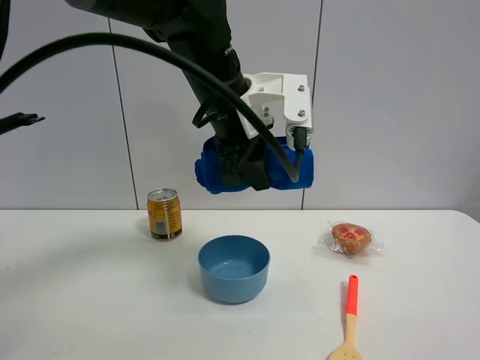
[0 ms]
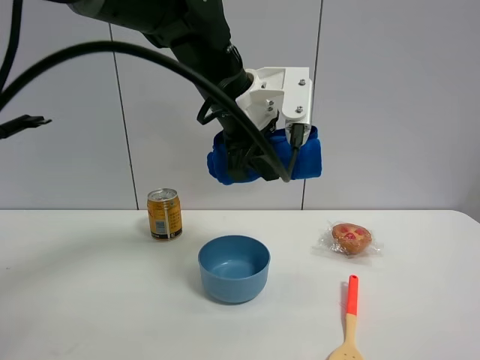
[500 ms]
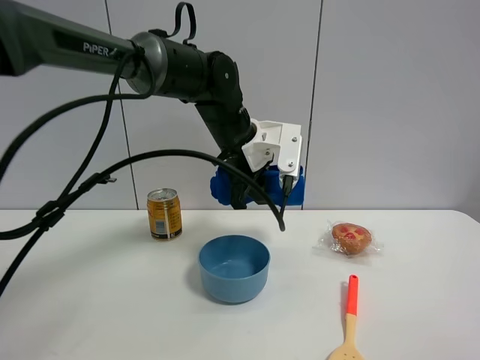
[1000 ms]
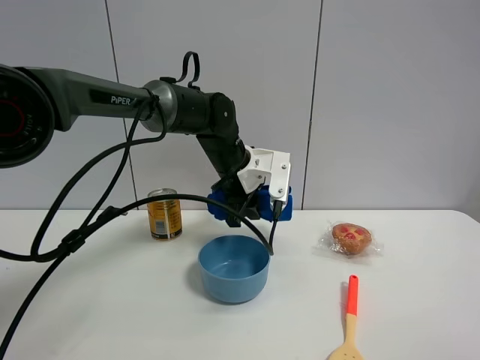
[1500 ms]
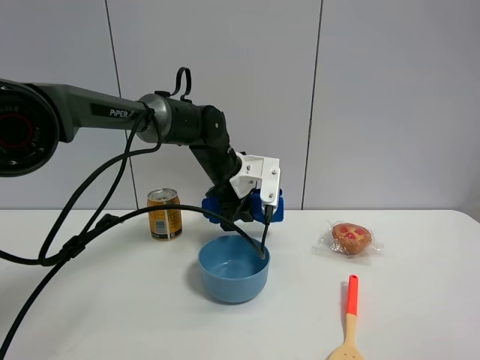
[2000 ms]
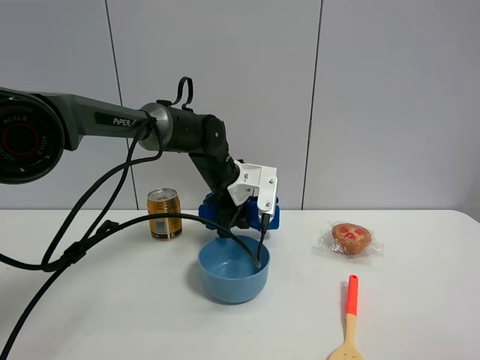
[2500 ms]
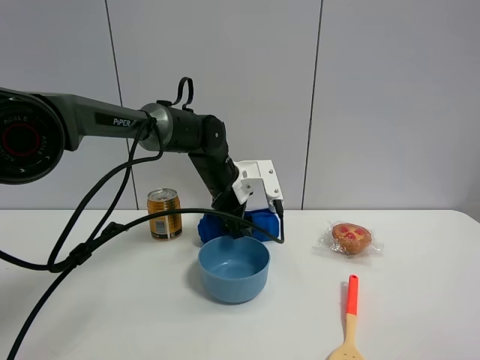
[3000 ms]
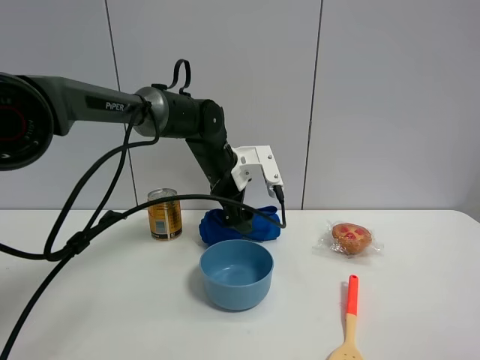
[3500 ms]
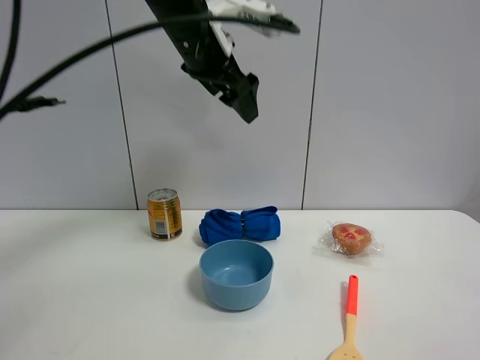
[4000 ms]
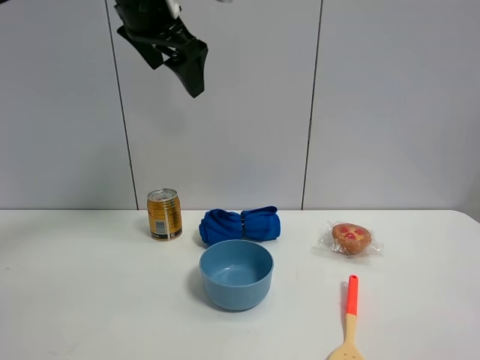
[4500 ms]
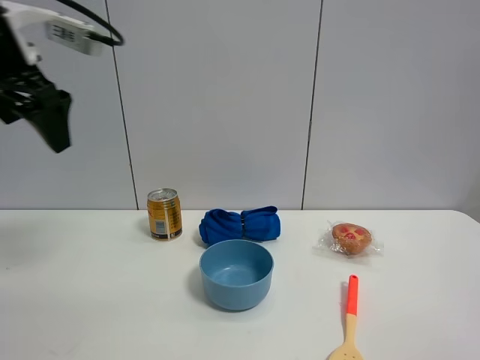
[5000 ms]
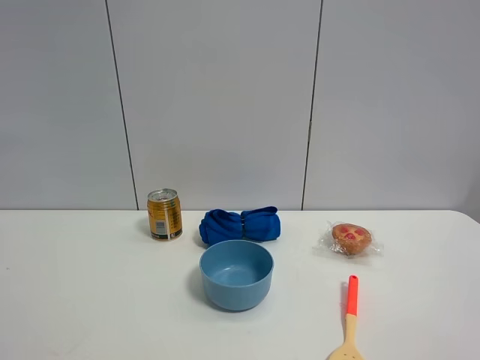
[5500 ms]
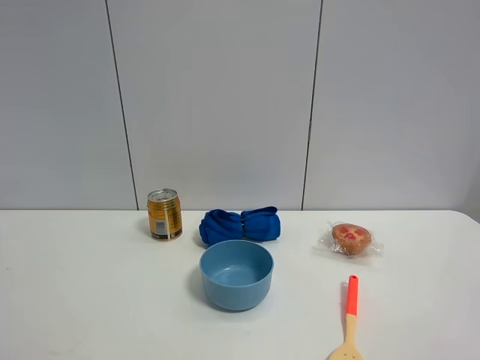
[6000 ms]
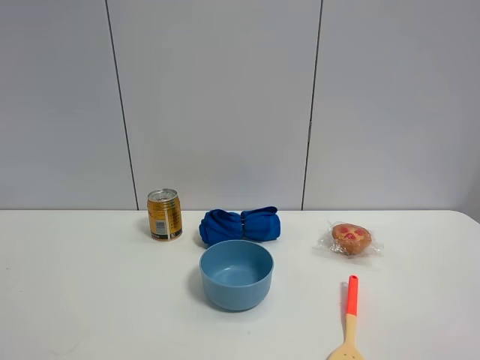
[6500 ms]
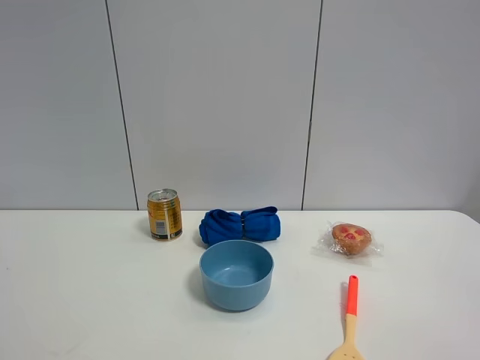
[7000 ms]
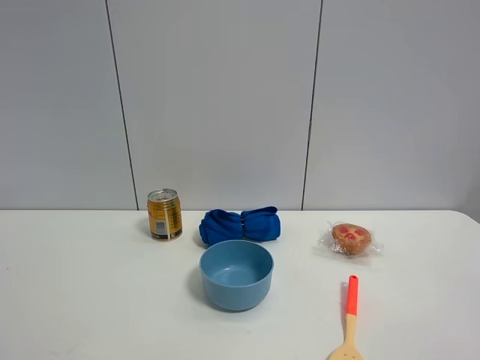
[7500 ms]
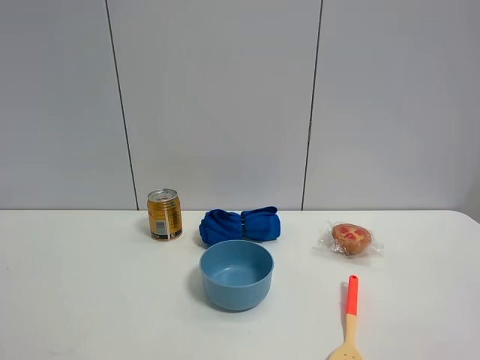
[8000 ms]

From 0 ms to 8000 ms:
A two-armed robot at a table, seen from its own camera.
Task of the whole recording: the gripper move the object.
Step, from 0 ms to 3500 ms: Place the blue towel on the table with the left gripper.
From 0 ms to 2000 ms: The left gripper moves downward and forward, some 20 cm.
From 2000 ms to 4000 ms: The left gripper goes roughly 20 cm upward, and opens.
From 4000 ms to 6000 ms: The left gripper is displaced backward and to the left by about 50 cm.
From 6000 ms to 8000 ms: The two grippers keep their place.

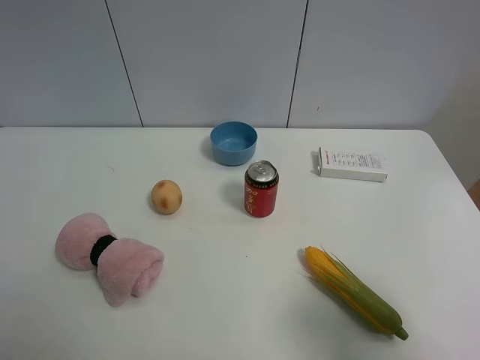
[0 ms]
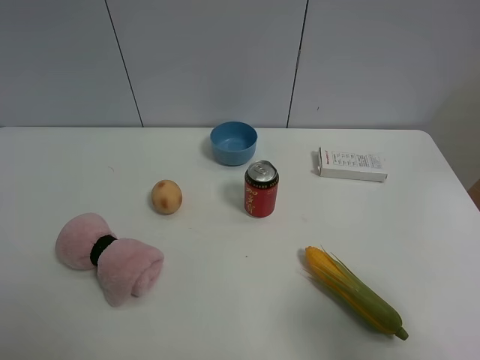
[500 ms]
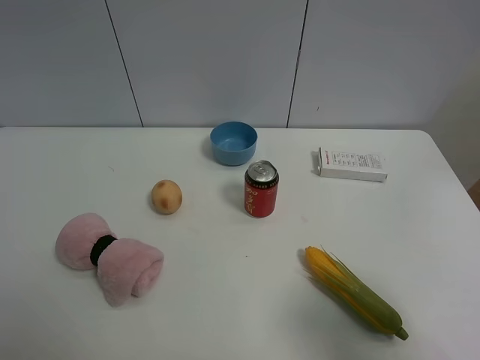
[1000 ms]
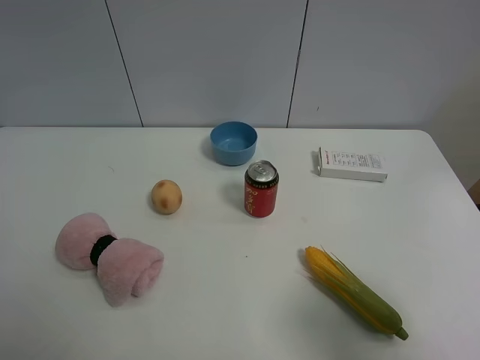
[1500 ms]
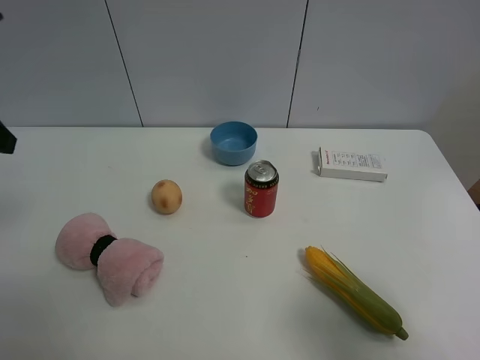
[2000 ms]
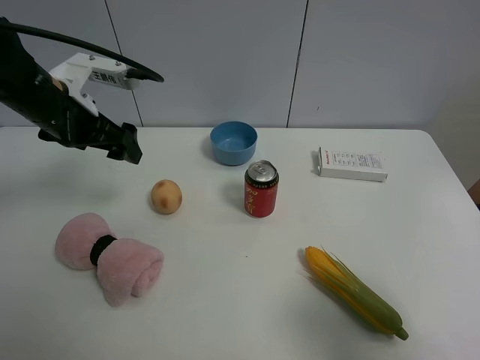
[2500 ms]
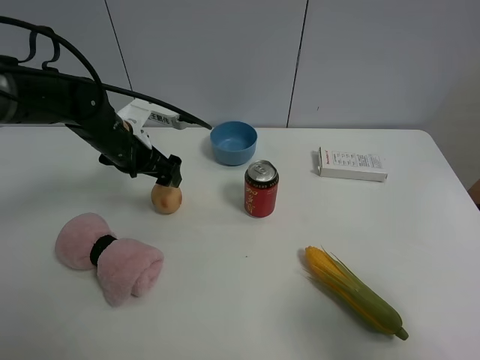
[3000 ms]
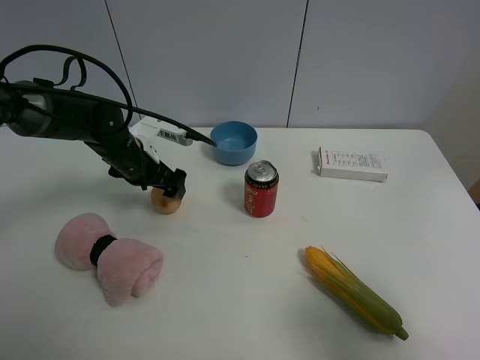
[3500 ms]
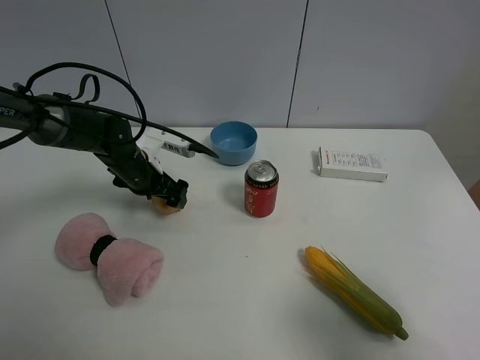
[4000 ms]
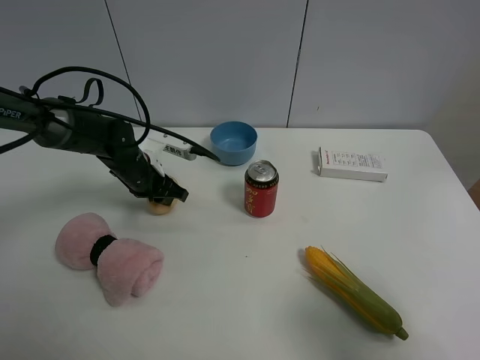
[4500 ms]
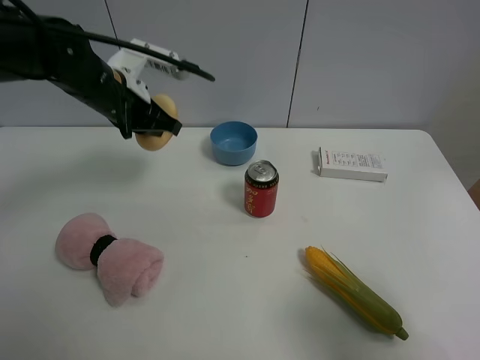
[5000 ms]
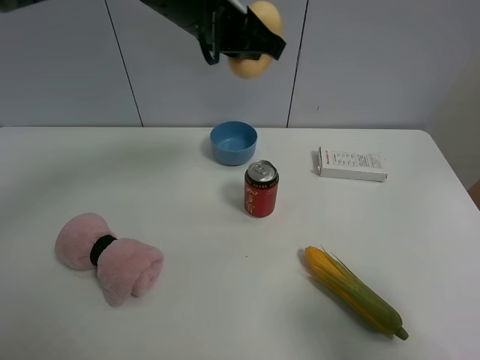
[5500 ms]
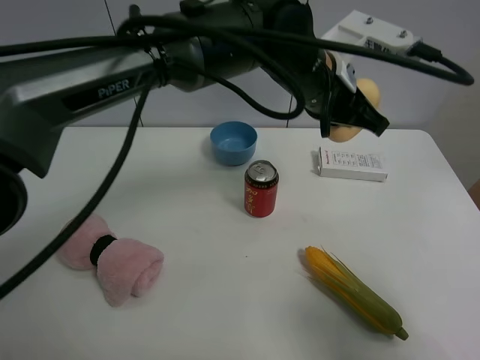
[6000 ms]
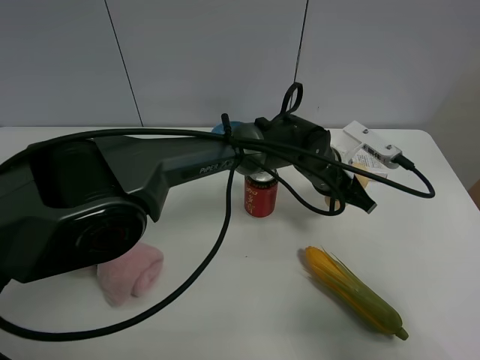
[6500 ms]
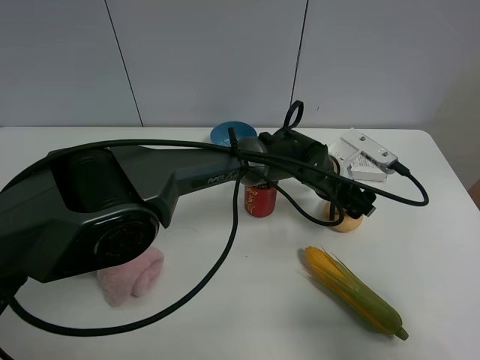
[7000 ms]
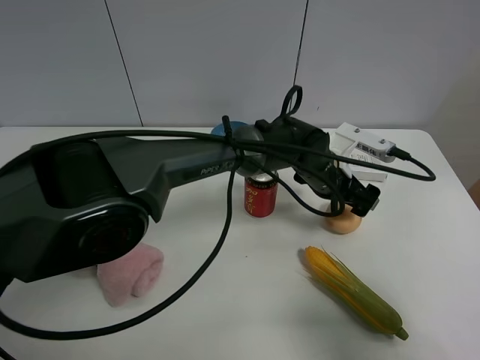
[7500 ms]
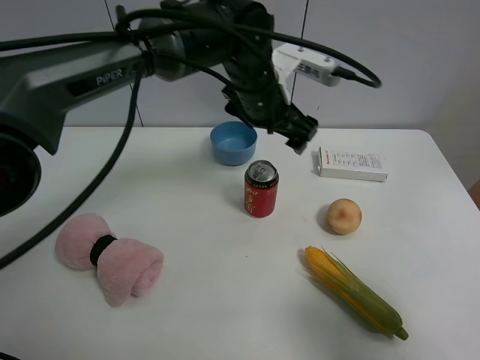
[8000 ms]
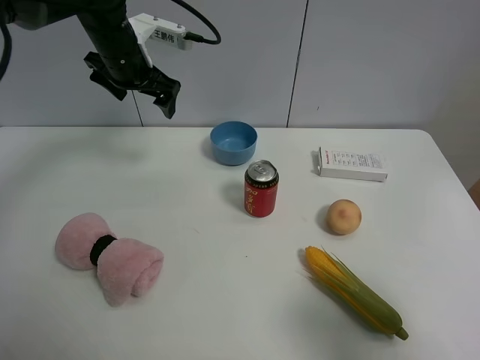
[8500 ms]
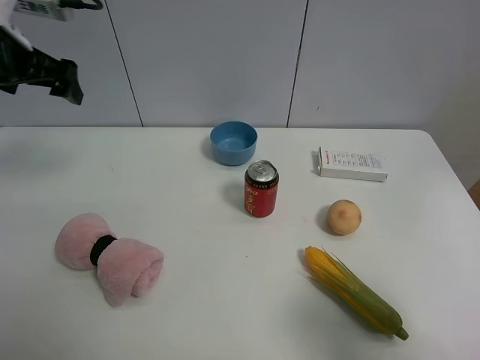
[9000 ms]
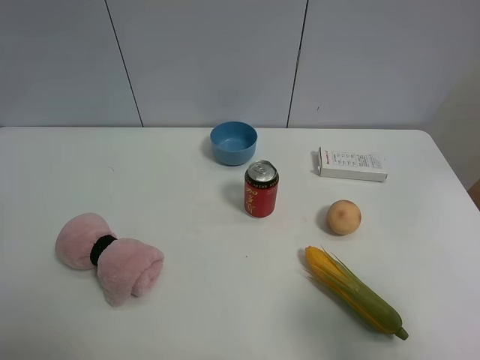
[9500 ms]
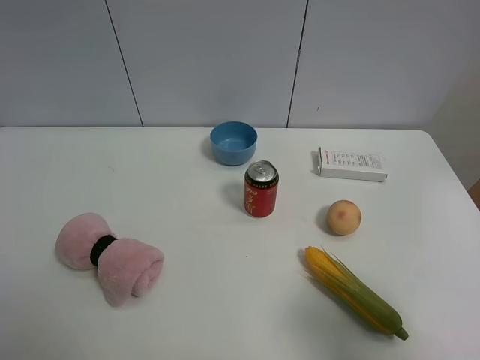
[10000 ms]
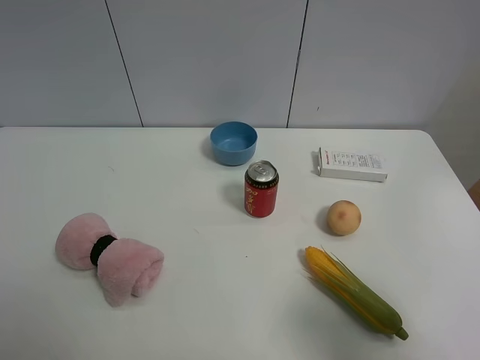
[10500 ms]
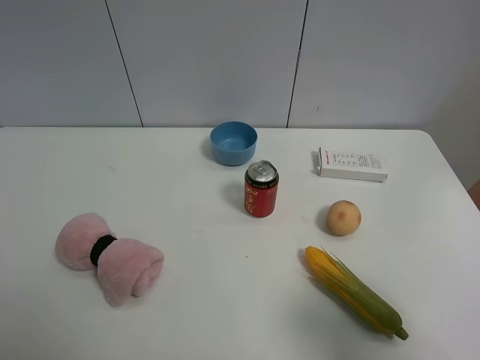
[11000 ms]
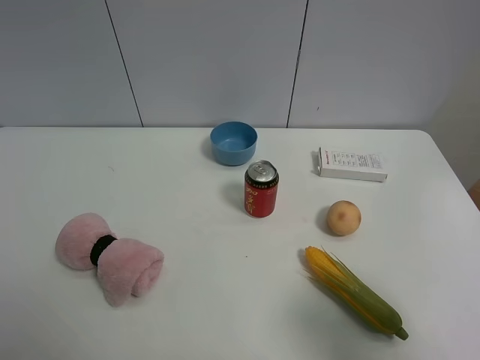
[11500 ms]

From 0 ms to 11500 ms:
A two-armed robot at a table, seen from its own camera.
Task of the whole recording: the gripper move the object.
Step, from 0 ms to 4500 ms: Grasp the egg yolk pastry with the left gripper.
Step, from 5000 ms to 7500 ms: Place the egg yolk pastry on the table with the left gripper.
From 2000 ms to 4000 ms: The left gripper travels downward, forward and to the right by approximately 30 cm.
From 4000 ms to 6000 ms: The left gripper moves to the right and upward, approximately 30 cm, and closes its fingers.
From 6000 ms to 7500 ms: The left gripper travels downward by some 15 cm, and opens.
From 7500 ms to 9500 ms: The left gripper is displaced to the left, upward and backward by about 60 cm.

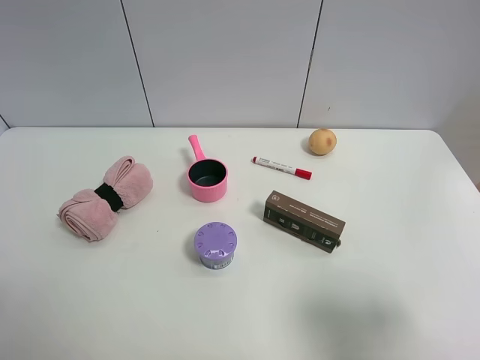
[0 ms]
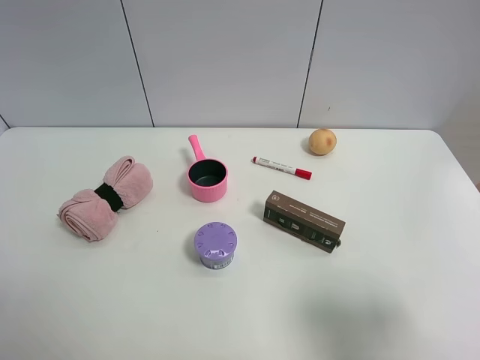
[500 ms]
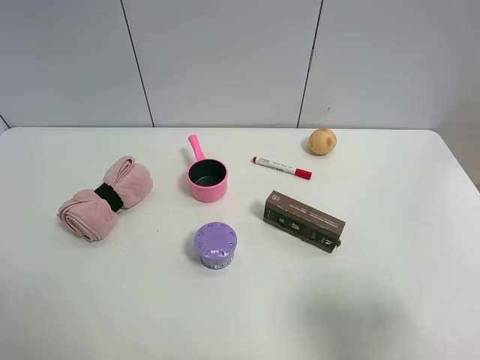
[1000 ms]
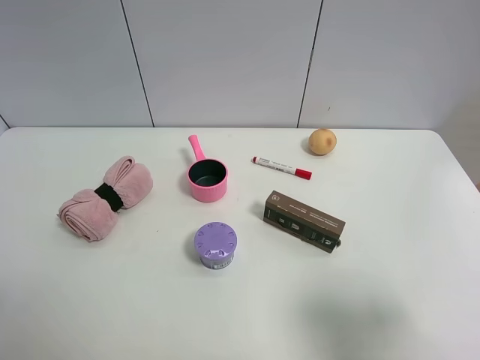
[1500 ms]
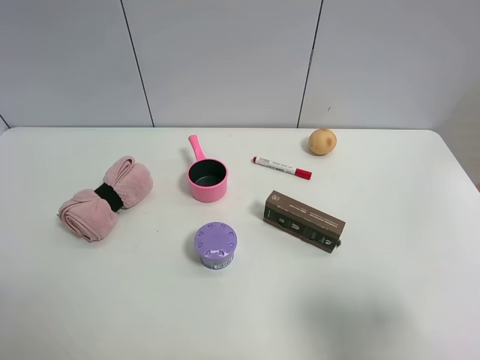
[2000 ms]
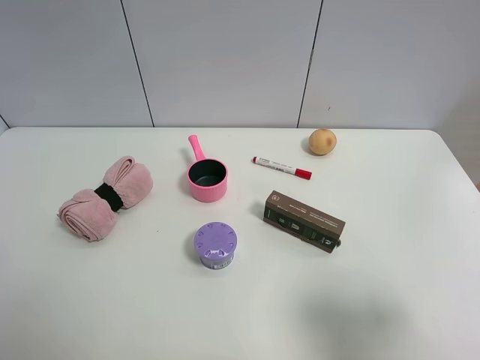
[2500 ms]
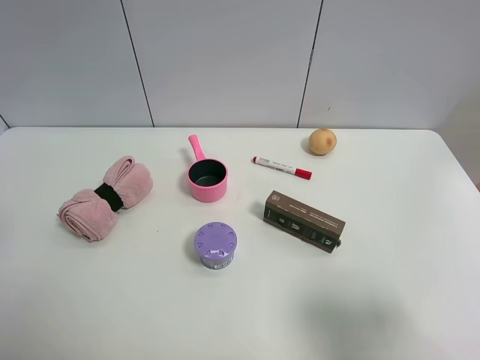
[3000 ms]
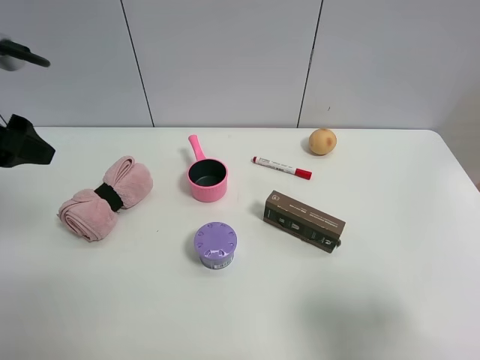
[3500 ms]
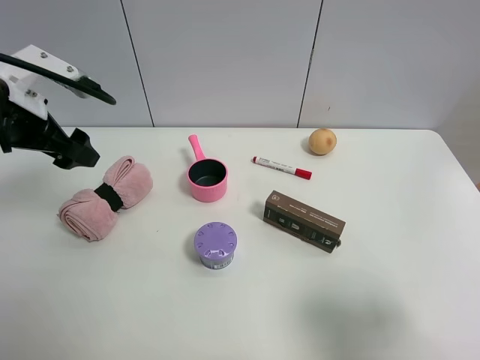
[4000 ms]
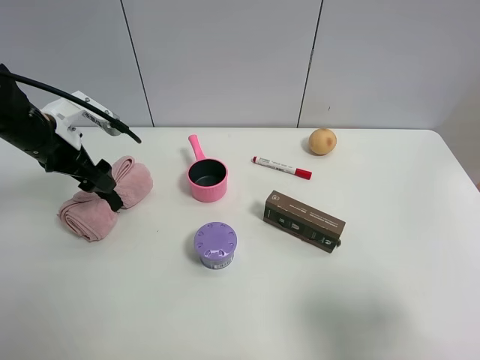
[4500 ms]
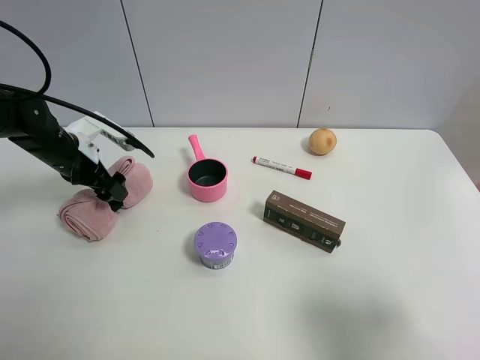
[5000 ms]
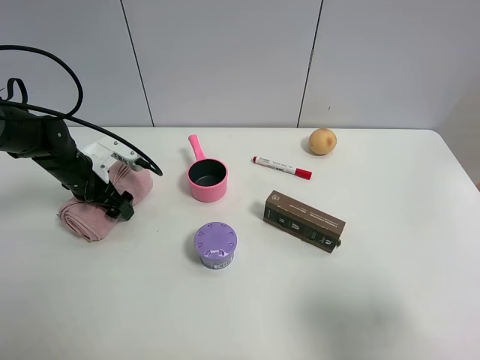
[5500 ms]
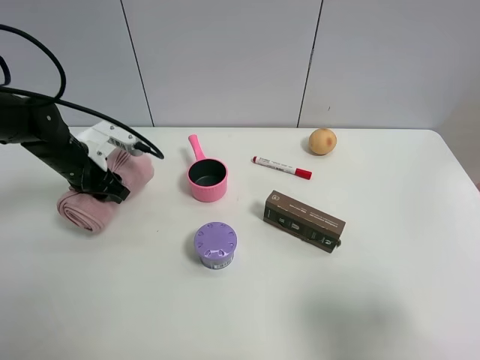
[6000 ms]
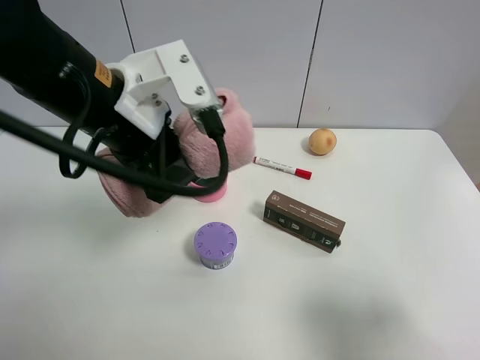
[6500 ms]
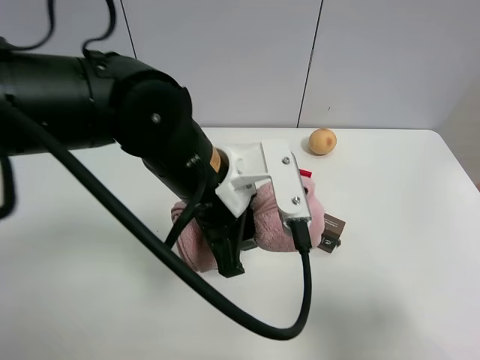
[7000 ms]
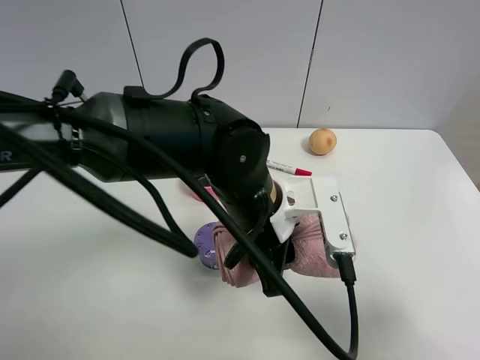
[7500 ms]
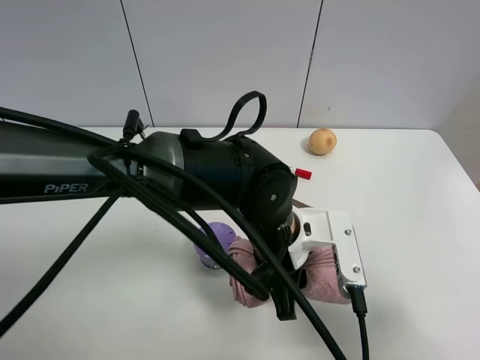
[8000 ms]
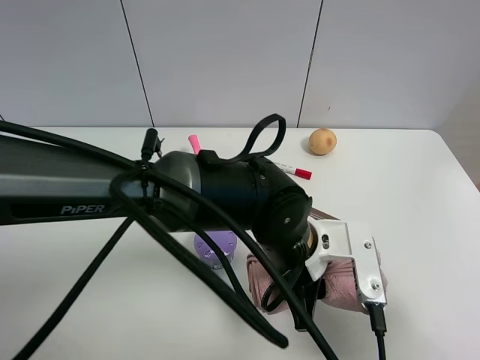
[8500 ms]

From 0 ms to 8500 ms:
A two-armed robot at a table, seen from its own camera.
Task of the whole recording: the gripper move the object.
Step, from 0 ms to 5500 ms: Grasp the pink towel with the left gripper.
From 0 ms to 2000 ms: Neither gripper changes place.
From 2000 ms to 4000 ms: The left gripper goes approximately 30 cm forward.
From 4000 ms to 6500 ms: The left gripper heads to the right and backward, covering some 20 cm, reaches some 15 cm downward, then returns, and closes its fingers.
From 6500 ms to 8500 ms: The left gripper goes about 25 cm to the right and downward.
